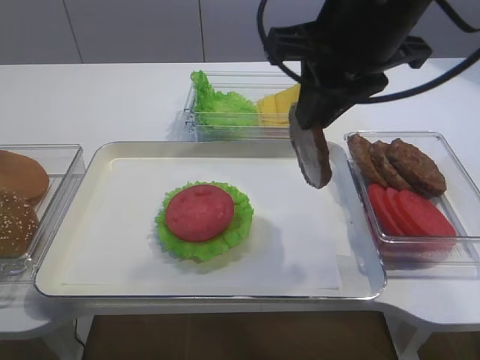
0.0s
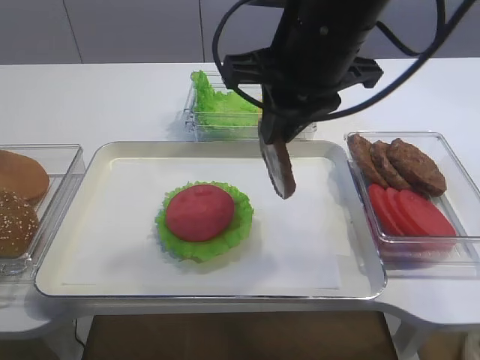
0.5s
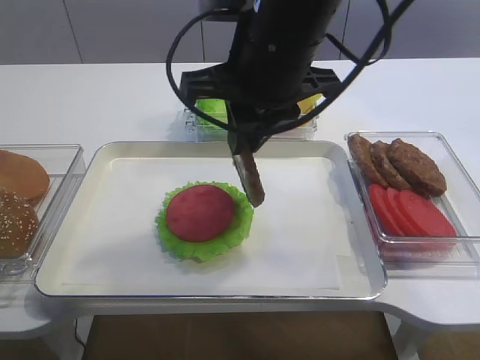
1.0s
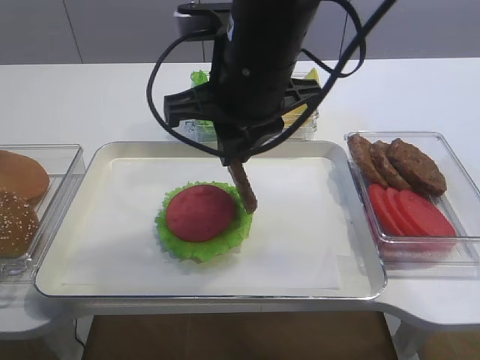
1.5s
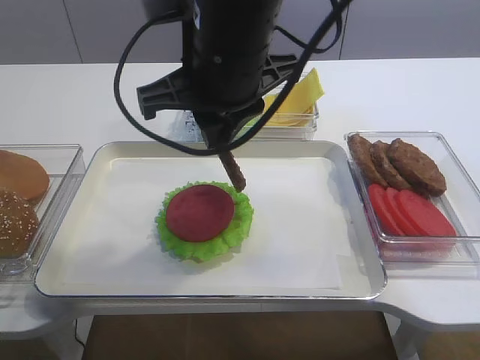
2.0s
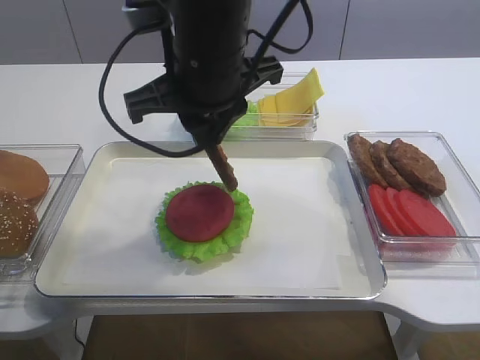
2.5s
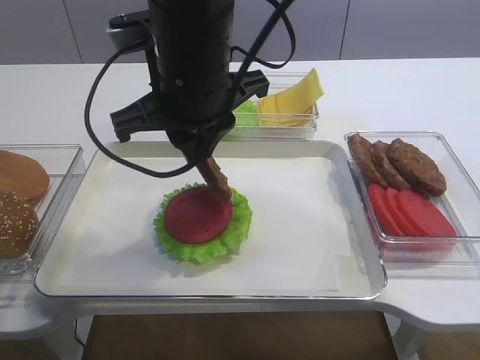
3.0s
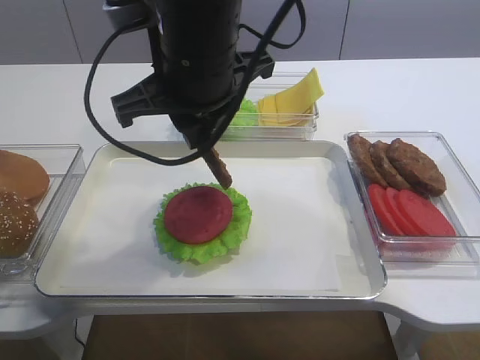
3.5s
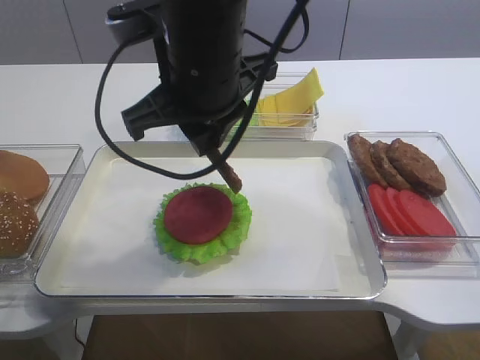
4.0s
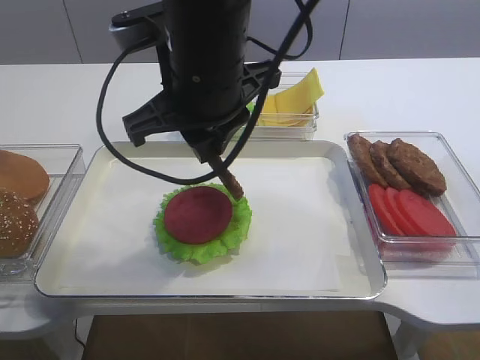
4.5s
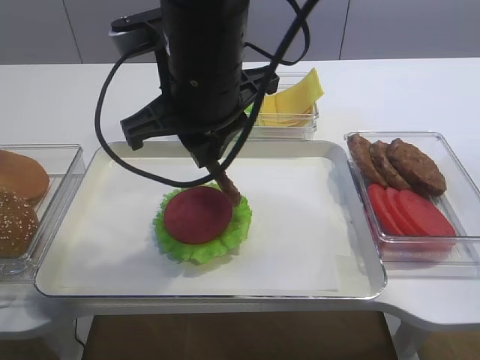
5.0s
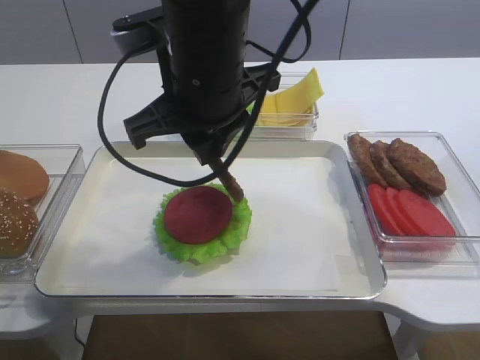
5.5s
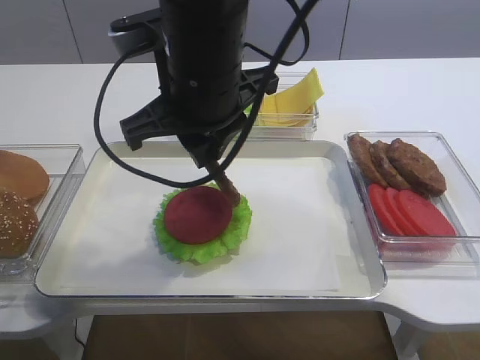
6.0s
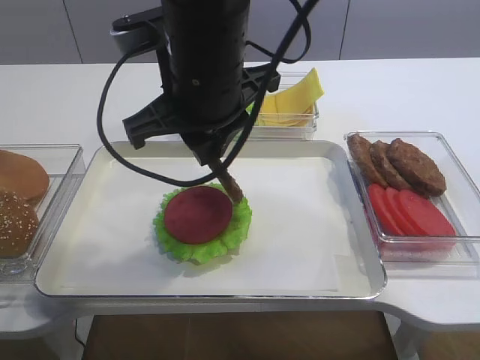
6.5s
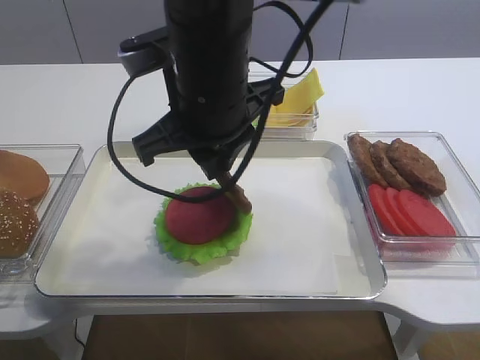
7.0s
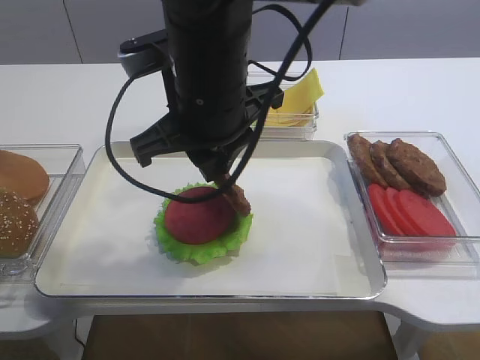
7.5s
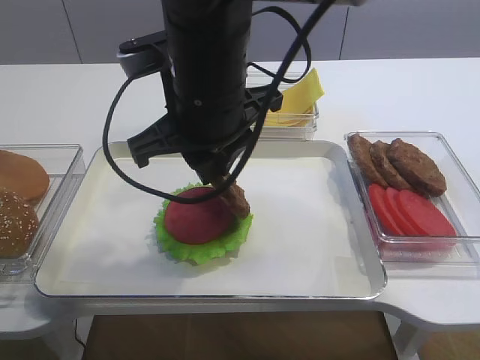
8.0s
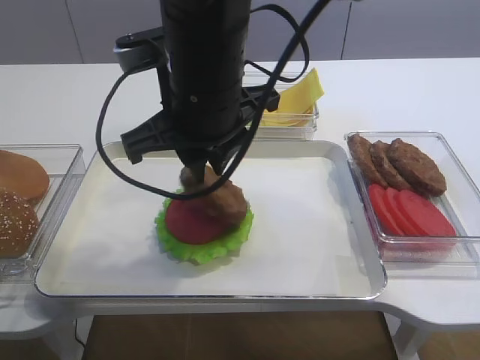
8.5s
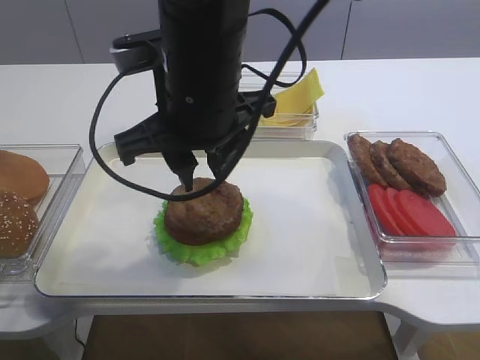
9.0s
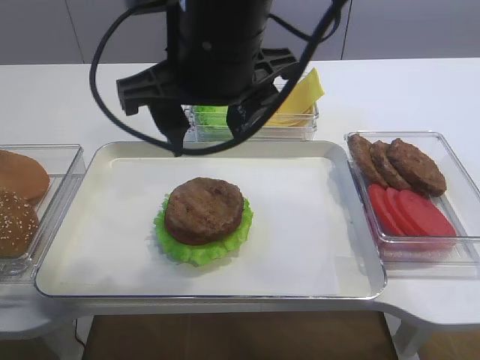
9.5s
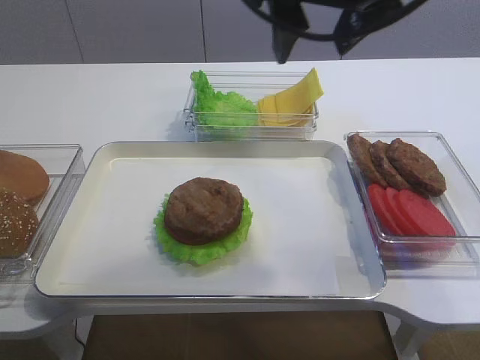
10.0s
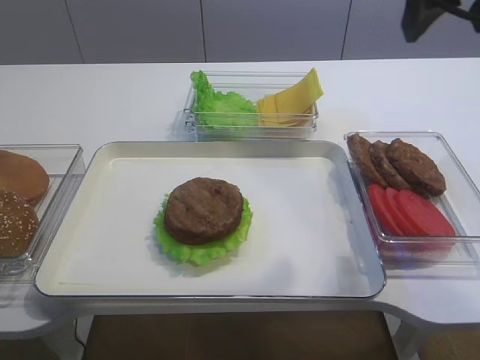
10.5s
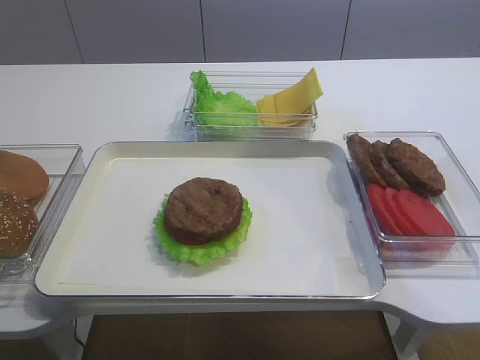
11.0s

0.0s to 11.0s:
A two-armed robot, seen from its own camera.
Step, 0.0s to 8.5s: Place the cutlet on the tomato slice with the right gripper.
0.0s to 2.0s: The right gripper travels to the left by some 10 cm.
2.0s to 3.5s: The grippers make only small movements.
3.5s to 5.5s: The two grippers keep their place.
5.5s to 7.5s: The grippers make only small movements.
7.5s to 9.0s: The right gripper opens up.
9.0s to 11.0s: The right gripper is displaced to the right and upward by some 25 cm, and opens its fingers.

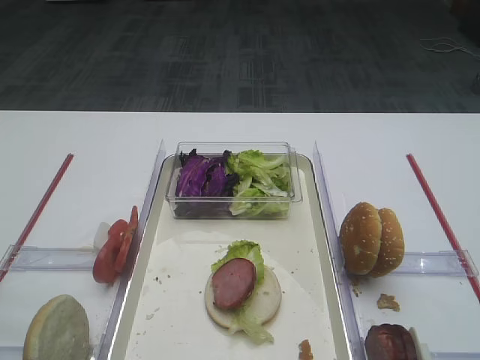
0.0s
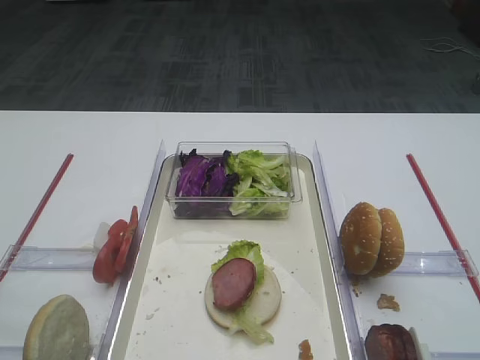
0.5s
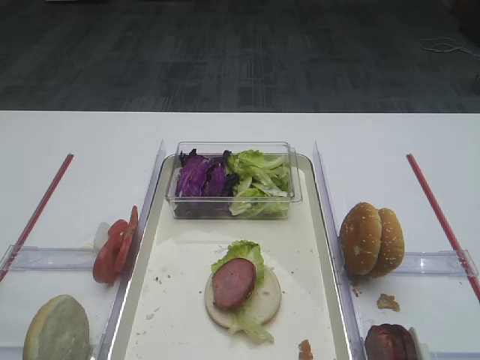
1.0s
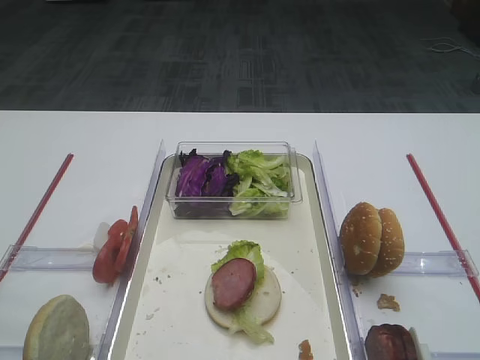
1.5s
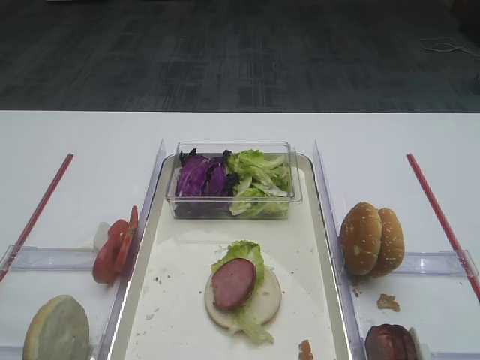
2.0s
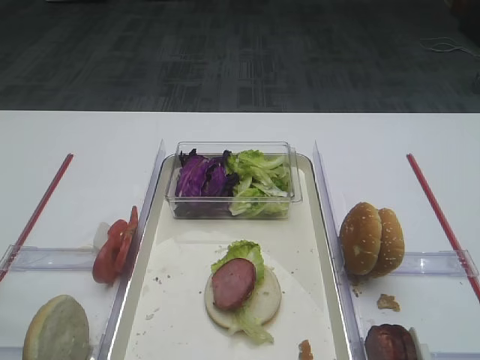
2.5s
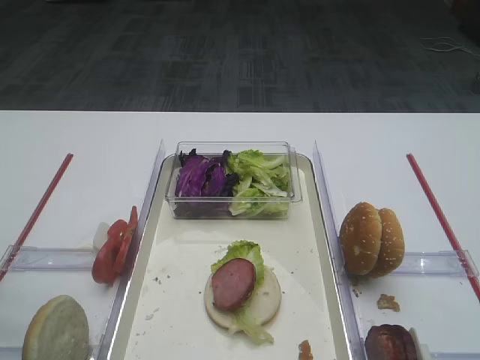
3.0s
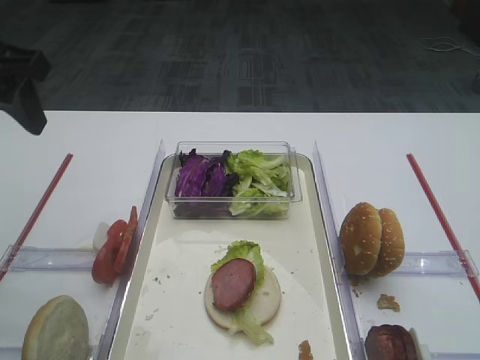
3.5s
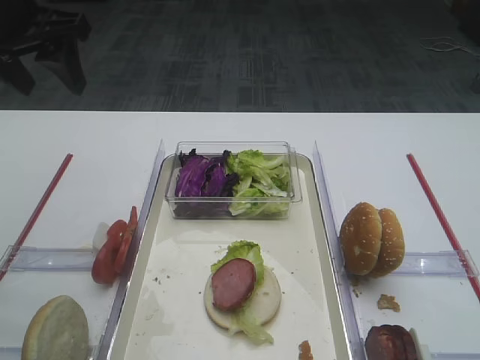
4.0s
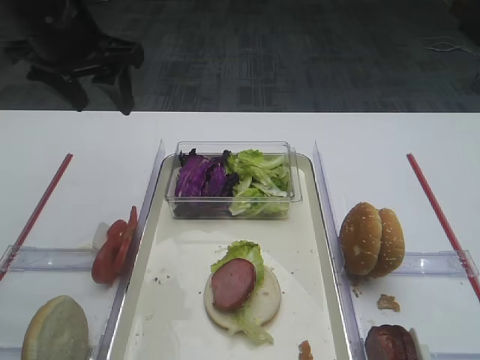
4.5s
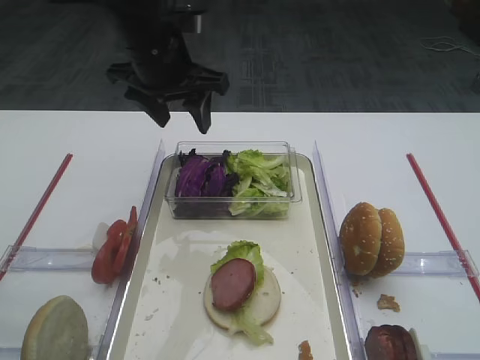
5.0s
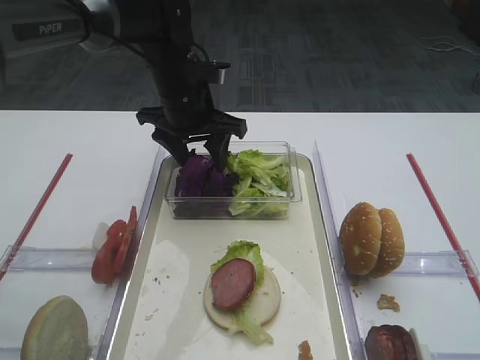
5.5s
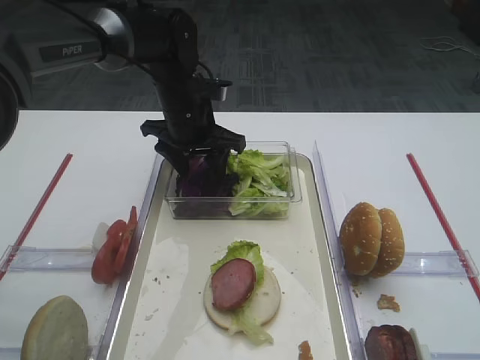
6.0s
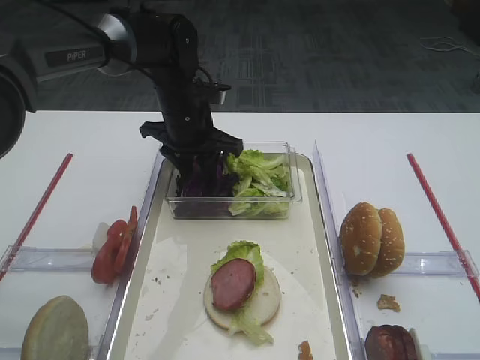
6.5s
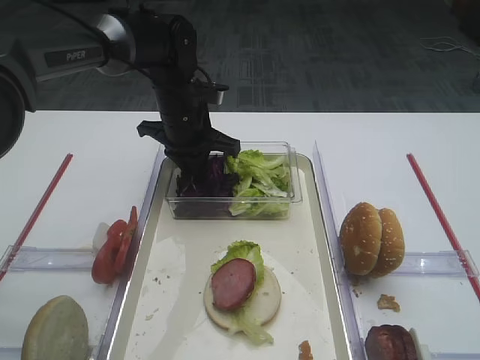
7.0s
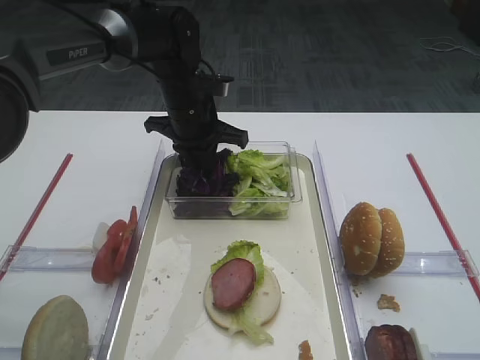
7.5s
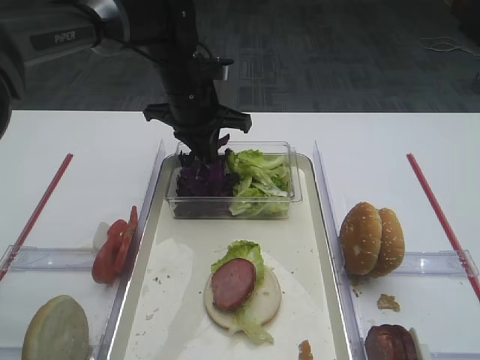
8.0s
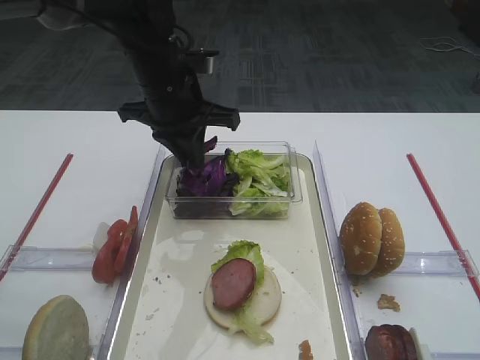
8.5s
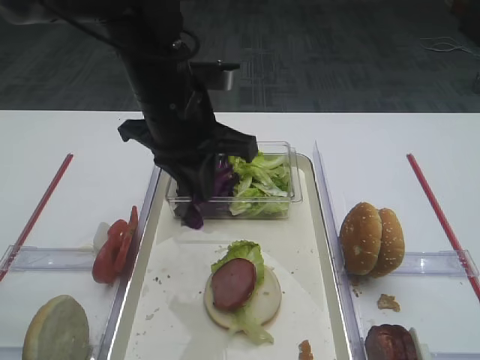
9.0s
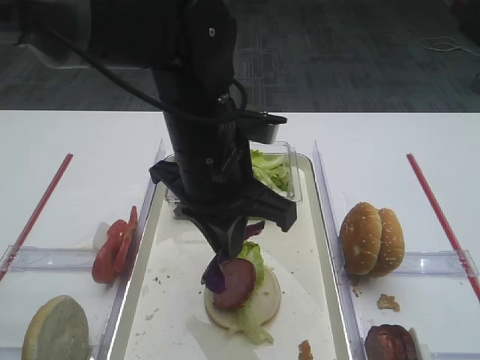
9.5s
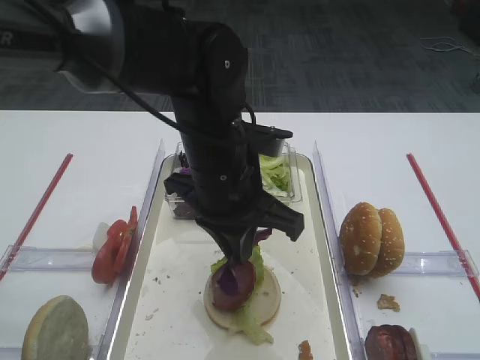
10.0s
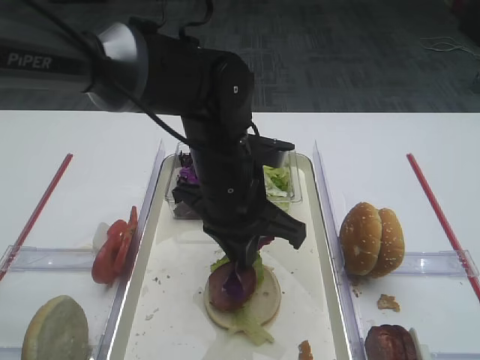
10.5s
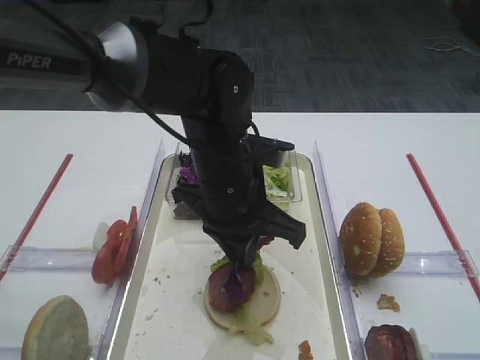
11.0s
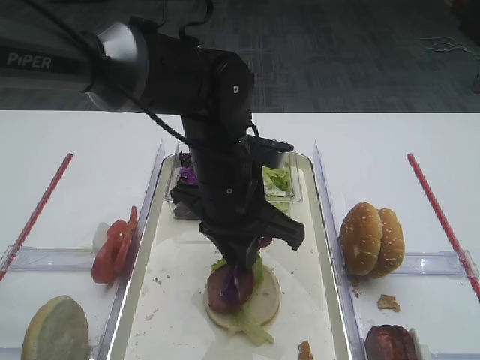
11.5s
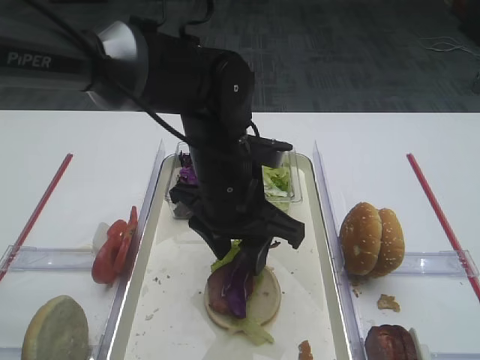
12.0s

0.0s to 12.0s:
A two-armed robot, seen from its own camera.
Step, 0.0s to 8.0s: Pick up the purple cabbage with the left gripper.
2.0s to 4.0s: The left gripper shifts about 35 cm forward.
4.0s to 6.0s: The left gripper goes about 25 cm downward, to the right and forward.
6.0s to 8.0s: The left gripper closes up.
8.0s to 10.0s: The left gripper goes about 15 cm backward.
10.0s to 12.0s: The left gripper opens up.

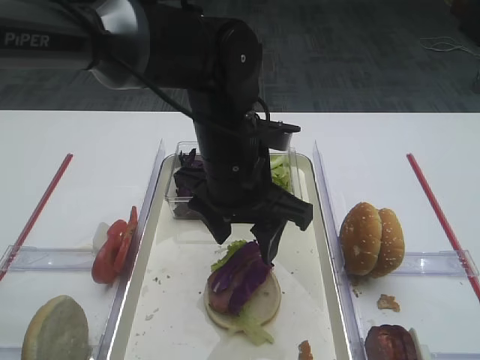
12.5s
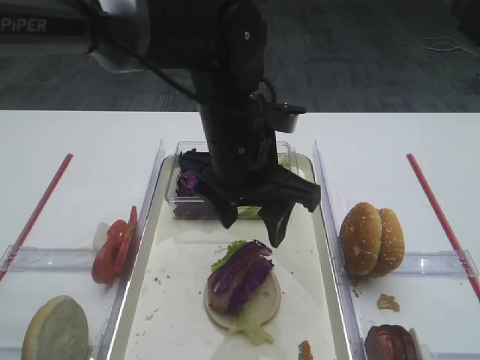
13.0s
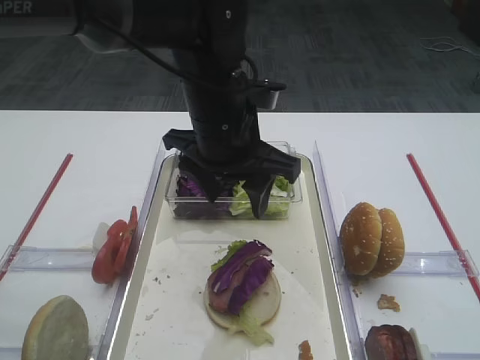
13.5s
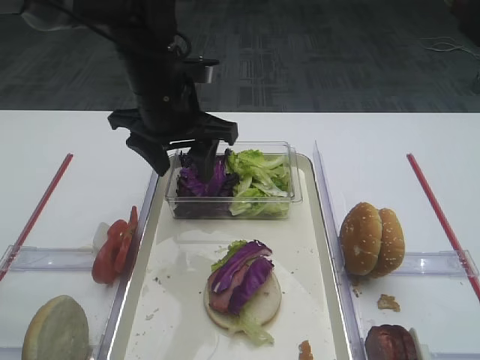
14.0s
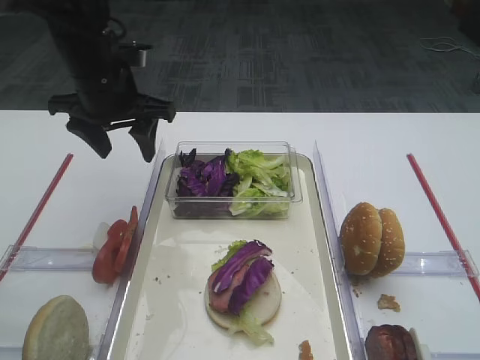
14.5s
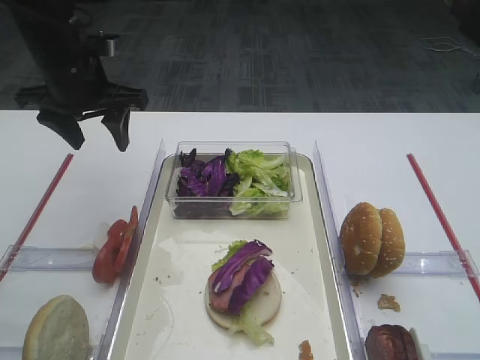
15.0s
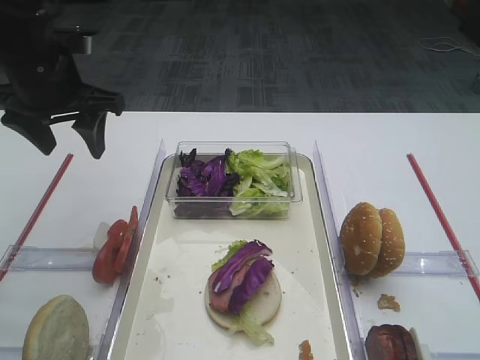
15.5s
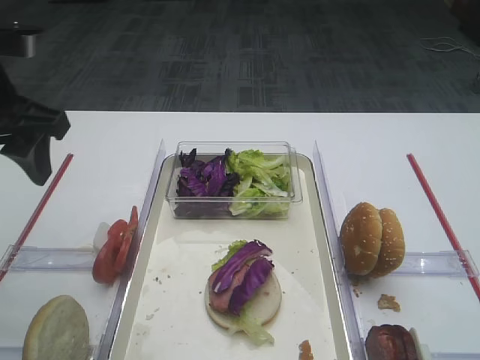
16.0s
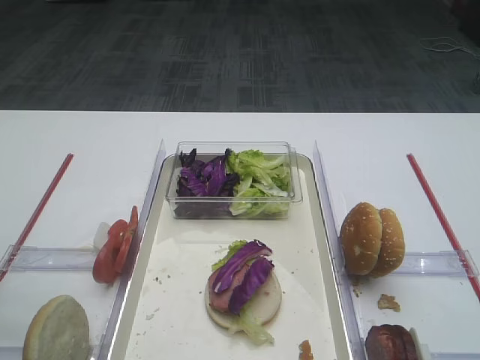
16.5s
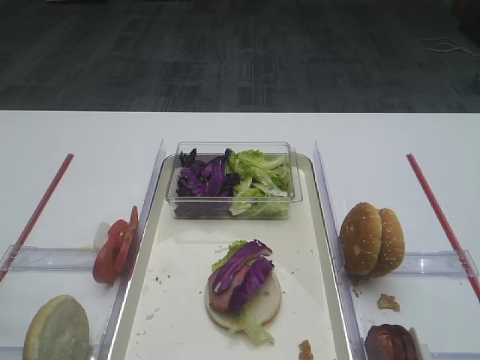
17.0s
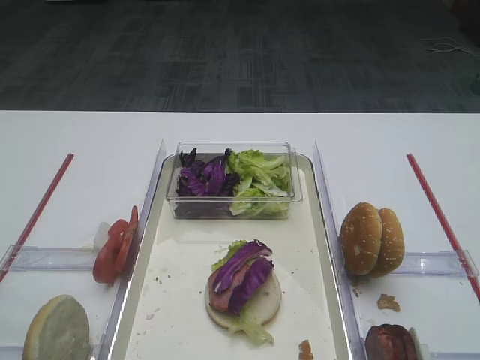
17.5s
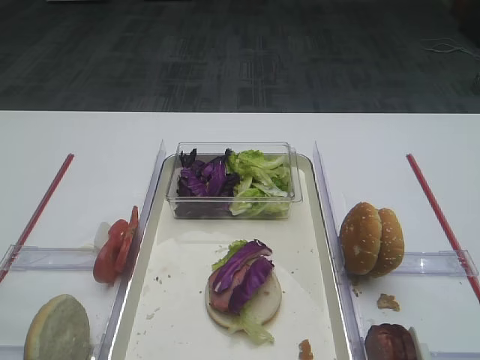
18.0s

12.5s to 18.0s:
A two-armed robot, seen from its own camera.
12.5s to 14.5s: The left gripper heads to the left and forward, covering about 20 cm.
14.5s to 16.0s: The left gripper travels backward, to the left and upward by approximately 15 cm.
16.0s to 18.0s: The left gripper heads backward, covering approximately 30 cm.
